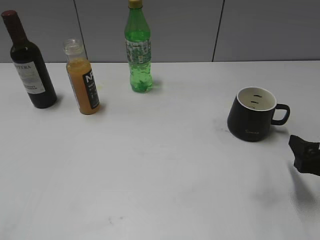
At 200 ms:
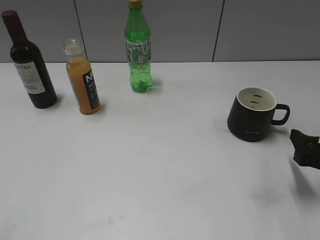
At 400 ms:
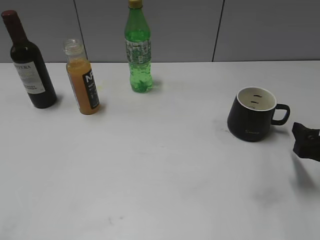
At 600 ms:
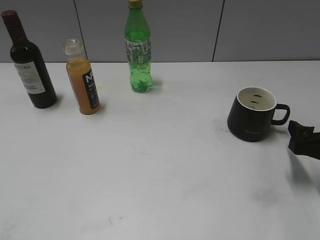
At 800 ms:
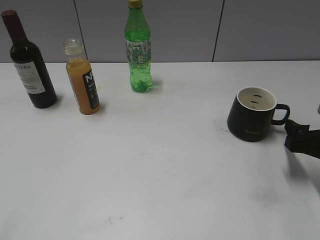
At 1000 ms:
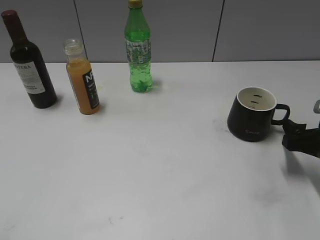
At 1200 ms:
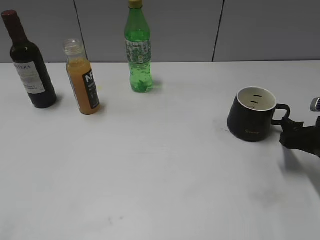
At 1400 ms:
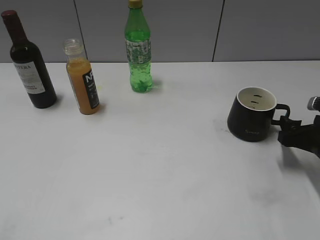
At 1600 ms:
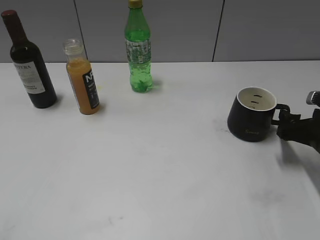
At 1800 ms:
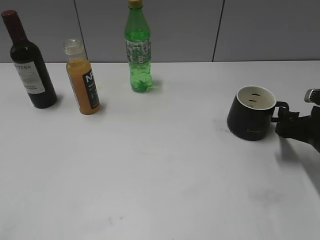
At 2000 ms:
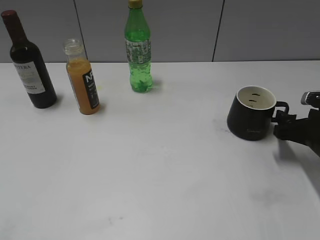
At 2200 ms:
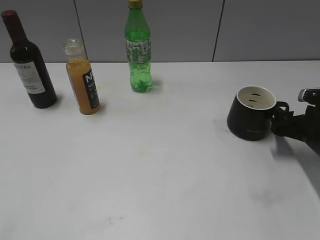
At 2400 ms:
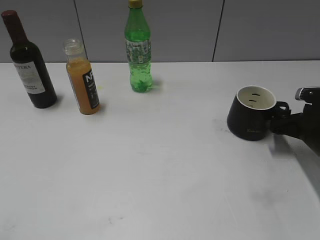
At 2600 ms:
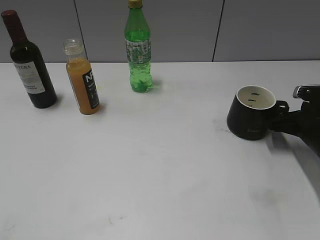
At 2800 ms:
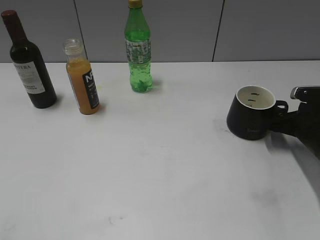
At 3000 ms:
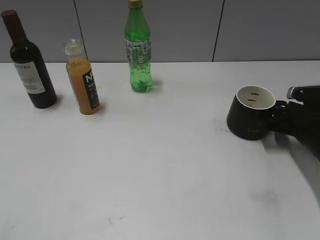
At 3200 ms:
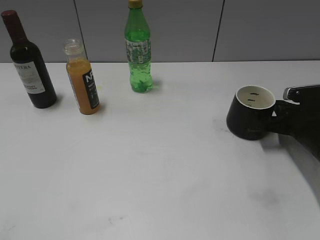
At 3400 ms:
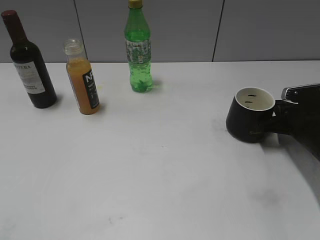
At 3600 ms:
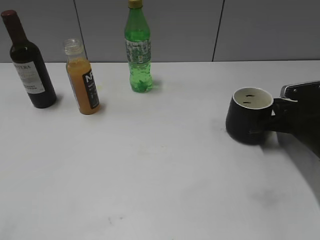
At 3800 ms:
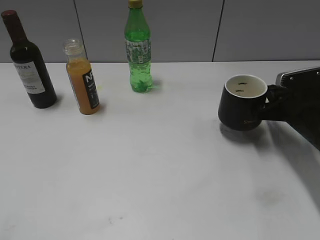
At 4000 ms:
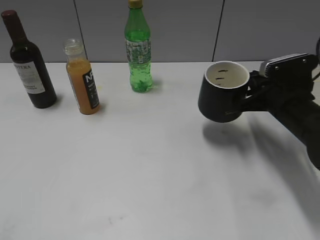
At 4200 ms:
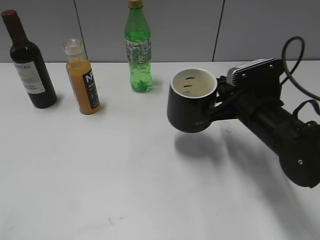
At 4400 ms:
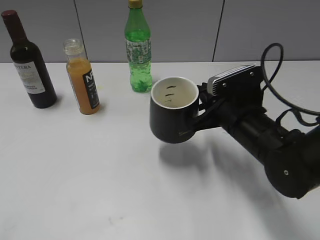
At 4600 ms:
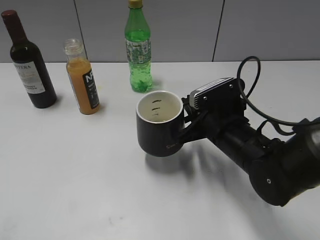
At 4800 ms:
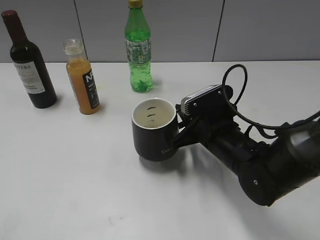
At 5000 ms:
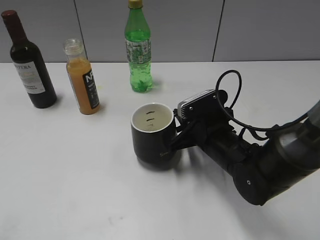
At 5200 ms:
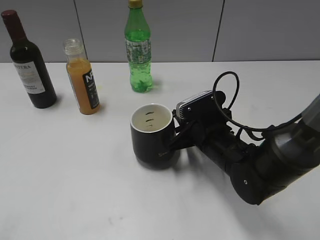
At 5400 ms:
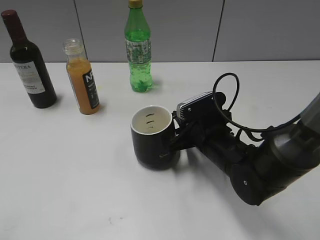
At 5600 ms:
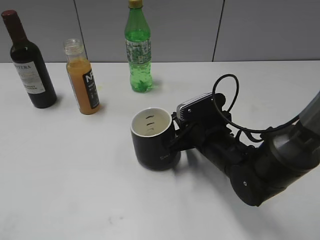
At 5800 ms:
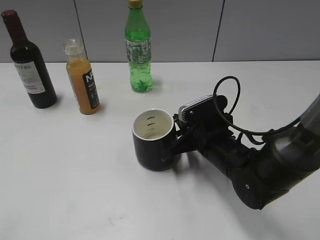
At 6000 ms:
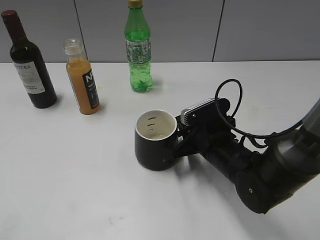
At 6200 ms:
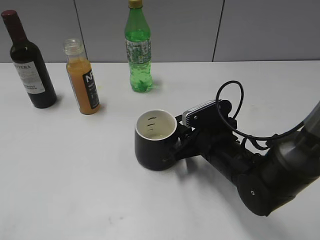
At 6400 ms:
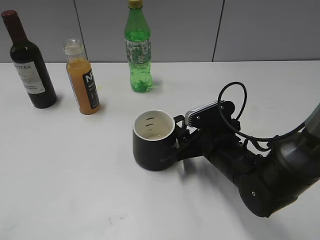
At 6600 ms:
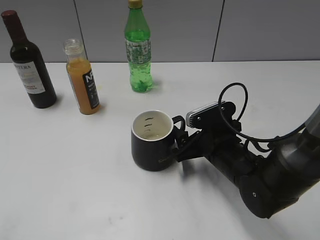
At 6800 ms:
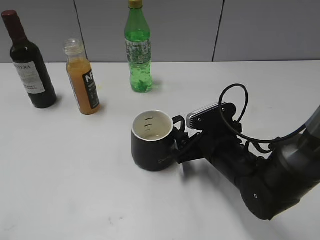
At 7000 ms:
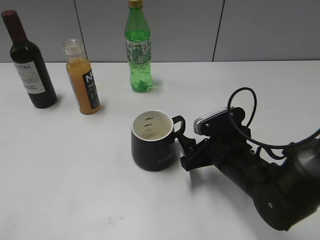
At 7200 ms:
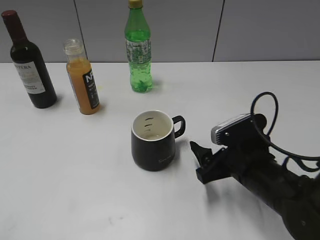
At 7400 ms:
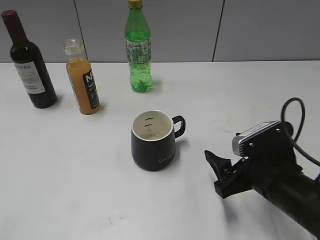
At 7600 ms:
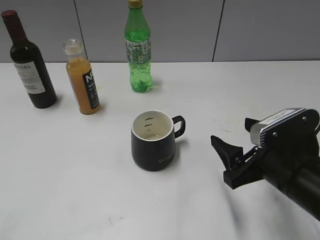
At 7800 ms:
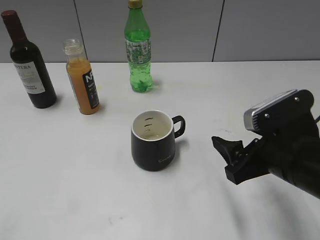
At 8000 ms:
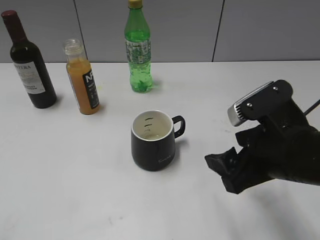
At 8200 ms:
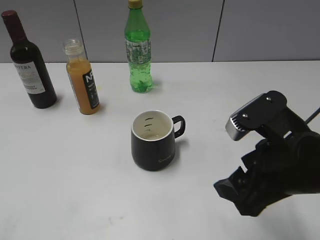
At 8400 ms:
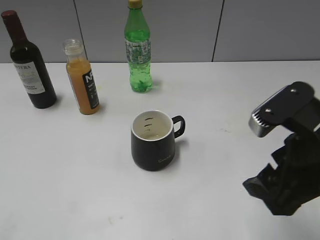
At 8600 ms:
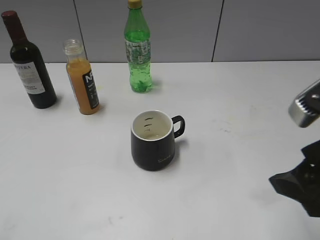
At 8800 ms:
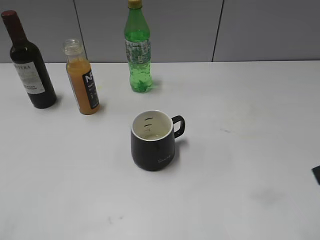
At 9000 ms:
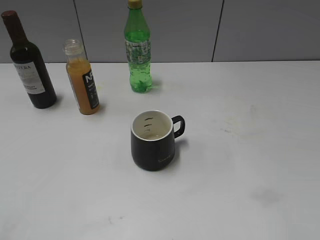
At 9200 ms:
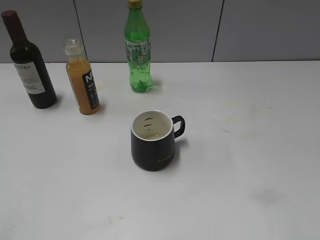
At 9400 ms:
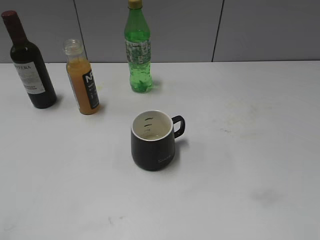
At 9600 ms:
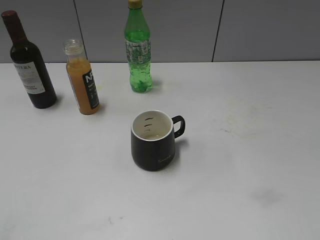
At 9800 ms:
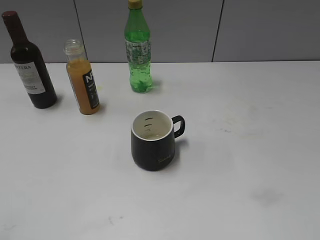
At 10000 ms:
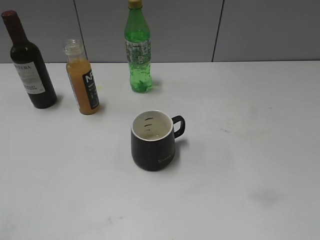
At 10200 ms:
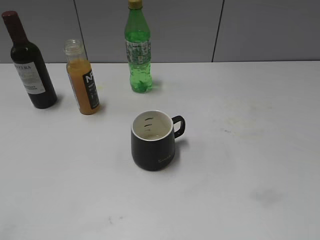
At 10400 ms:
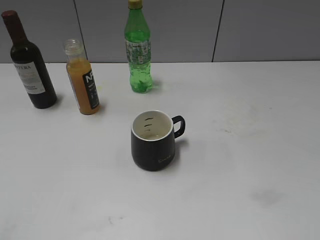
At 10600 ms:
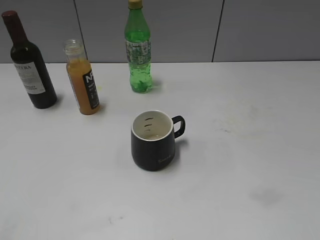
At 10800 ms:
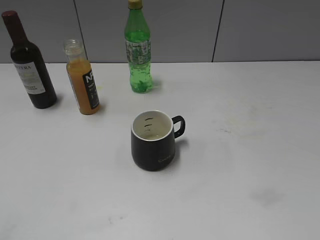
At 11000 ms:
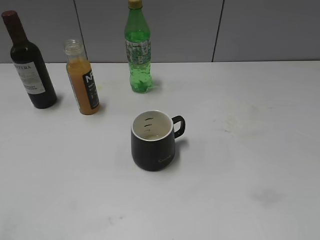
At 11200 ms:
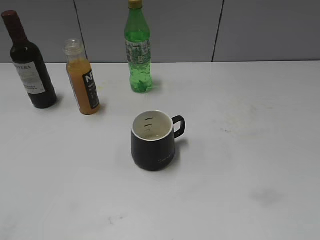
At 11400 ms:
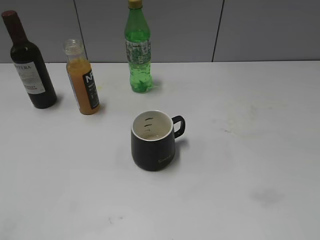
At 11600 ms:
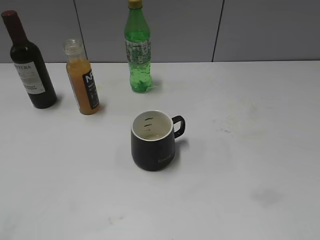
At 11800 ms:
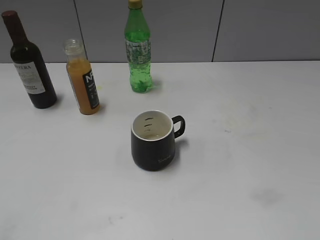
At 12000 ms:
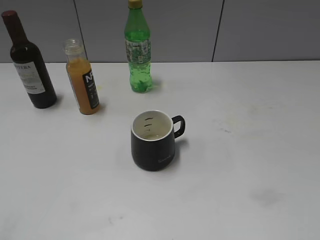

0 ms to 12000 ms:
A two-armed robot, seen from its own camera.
Step, 0 ms to 3400 ms: Grasp the black cup with right gripper.
Step, 3600 ms to 6400 ms: Place the black cup in the center of view with right gripper.
0 ms to 1600 ms: The right gripper travels forward by some 10 cm.
1600 ms to 3000 ms: The grippers stay close to where they were, moving slightly.
3000 ms to 4400 ms: The right gripper is displaced to the left and upward by approximately 15 cm, and closes its fingers.
4400 ms to 6000 ms: The right gripper goes some 5 cm downward.
6000 ms to 7600 ms: The right gripper moves backward, to the right and upward, some 15 cm, and opens up.
7600 ms to 9000 ms: The right gripper heads upward, to the right and backward, covering some 20 cm.
10400 ms to 12000 ms: Both grippers stay about where they are.

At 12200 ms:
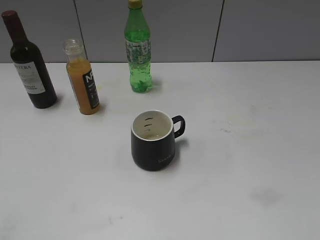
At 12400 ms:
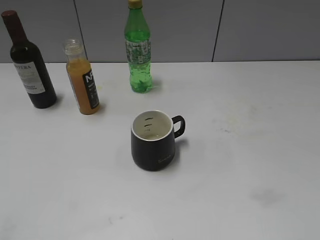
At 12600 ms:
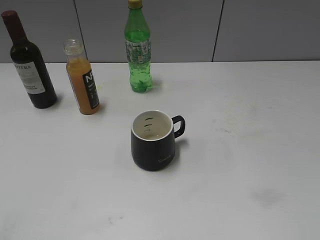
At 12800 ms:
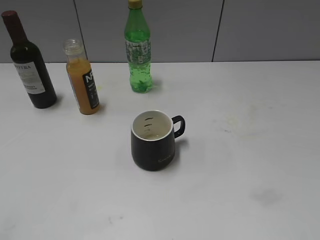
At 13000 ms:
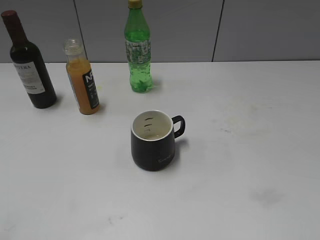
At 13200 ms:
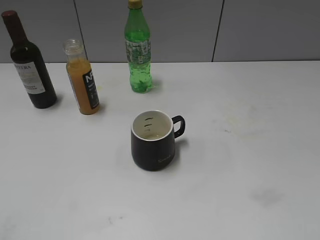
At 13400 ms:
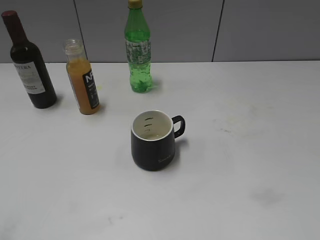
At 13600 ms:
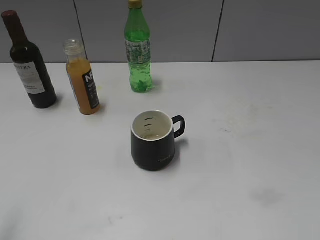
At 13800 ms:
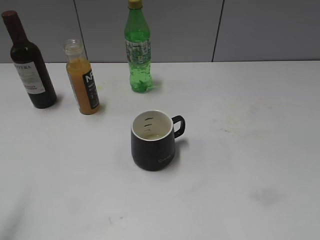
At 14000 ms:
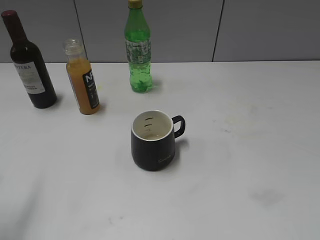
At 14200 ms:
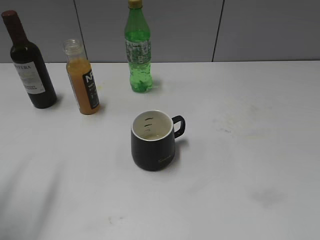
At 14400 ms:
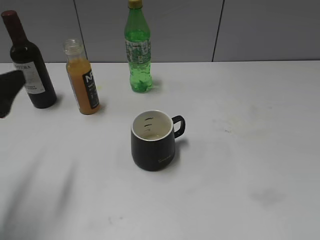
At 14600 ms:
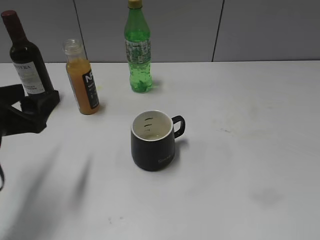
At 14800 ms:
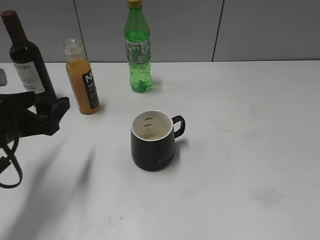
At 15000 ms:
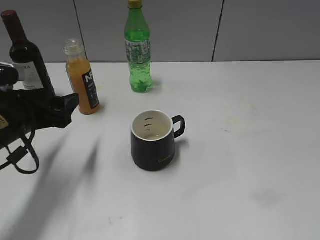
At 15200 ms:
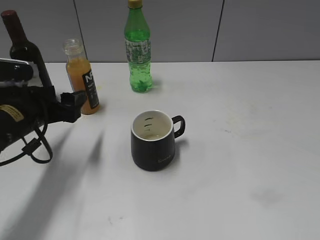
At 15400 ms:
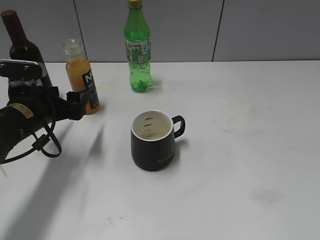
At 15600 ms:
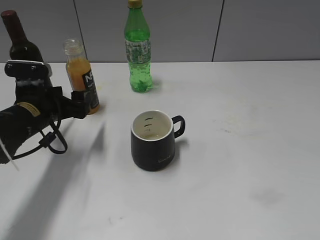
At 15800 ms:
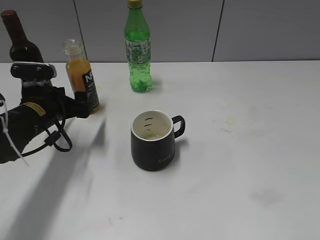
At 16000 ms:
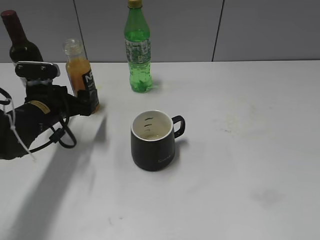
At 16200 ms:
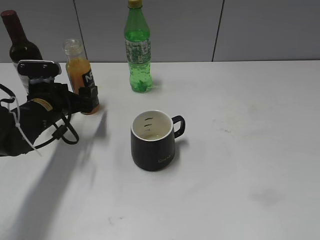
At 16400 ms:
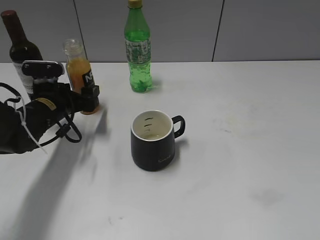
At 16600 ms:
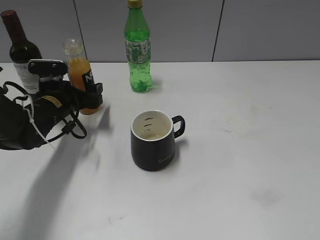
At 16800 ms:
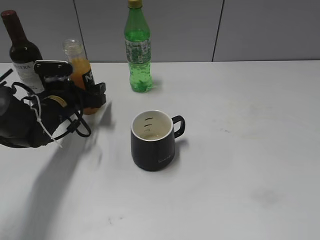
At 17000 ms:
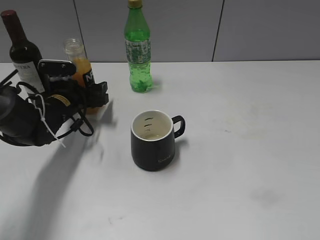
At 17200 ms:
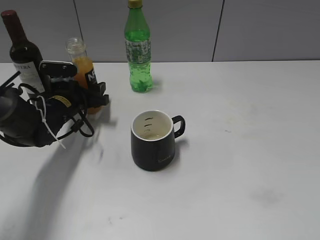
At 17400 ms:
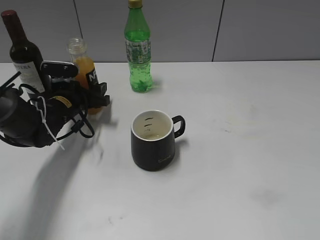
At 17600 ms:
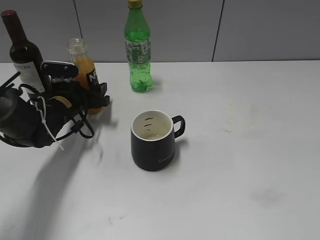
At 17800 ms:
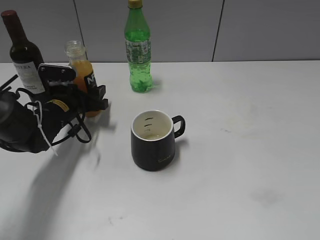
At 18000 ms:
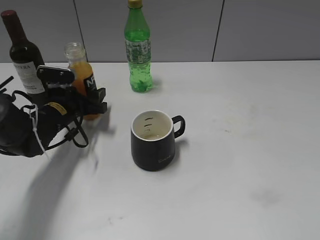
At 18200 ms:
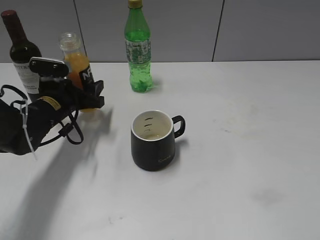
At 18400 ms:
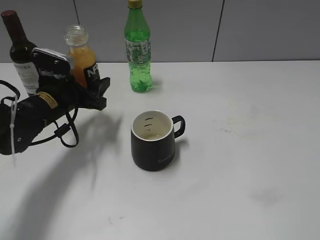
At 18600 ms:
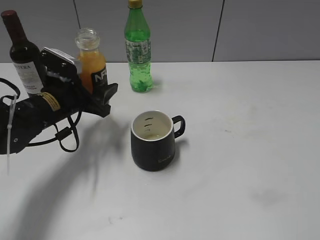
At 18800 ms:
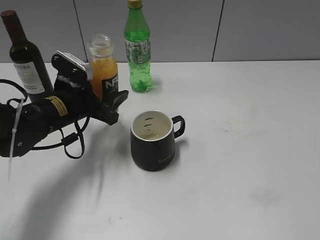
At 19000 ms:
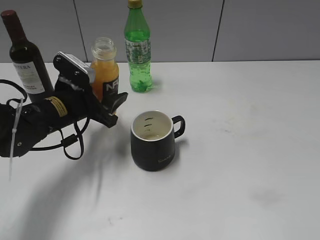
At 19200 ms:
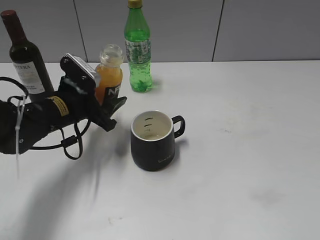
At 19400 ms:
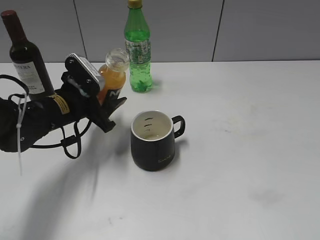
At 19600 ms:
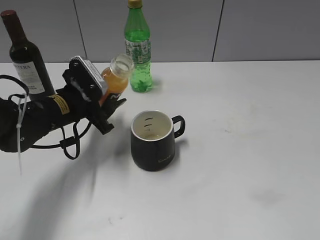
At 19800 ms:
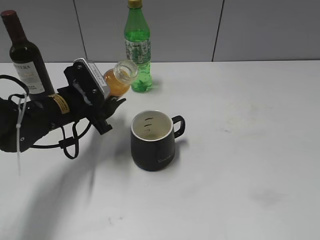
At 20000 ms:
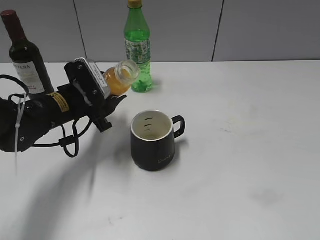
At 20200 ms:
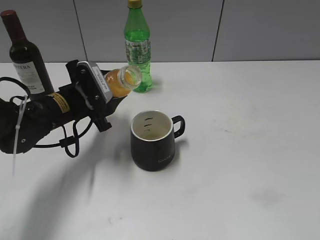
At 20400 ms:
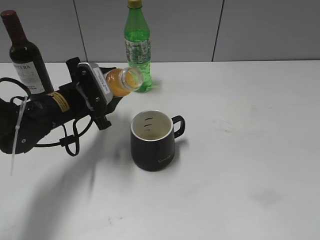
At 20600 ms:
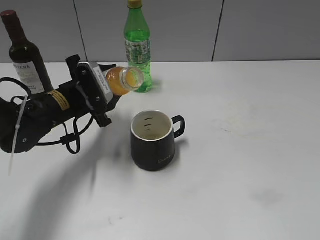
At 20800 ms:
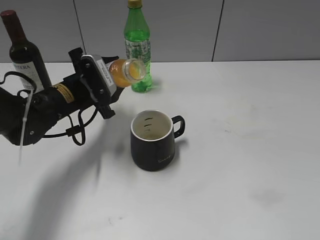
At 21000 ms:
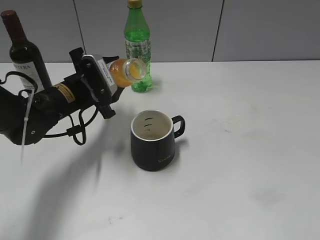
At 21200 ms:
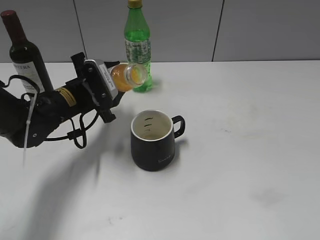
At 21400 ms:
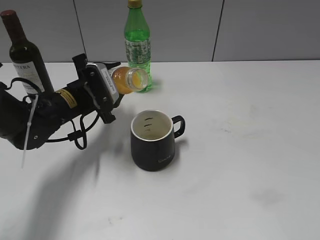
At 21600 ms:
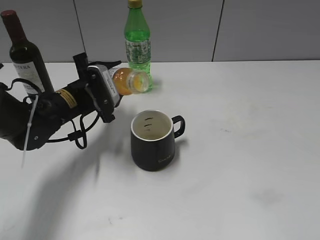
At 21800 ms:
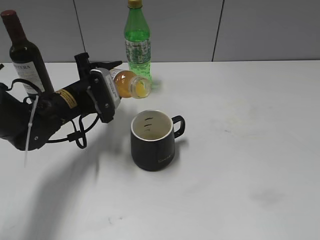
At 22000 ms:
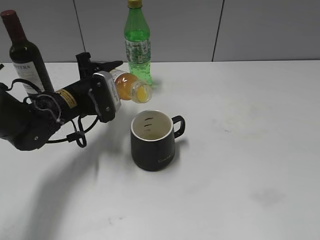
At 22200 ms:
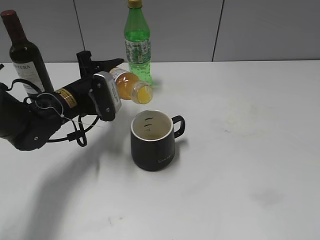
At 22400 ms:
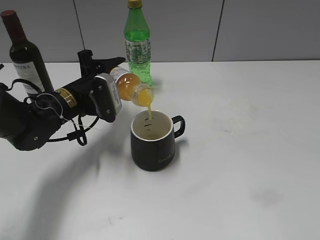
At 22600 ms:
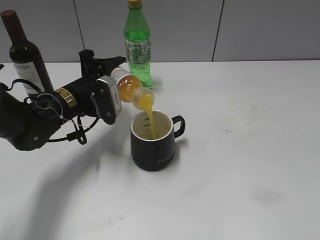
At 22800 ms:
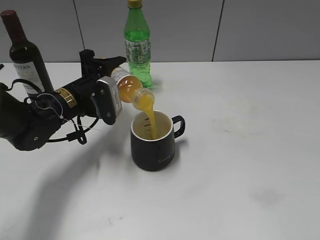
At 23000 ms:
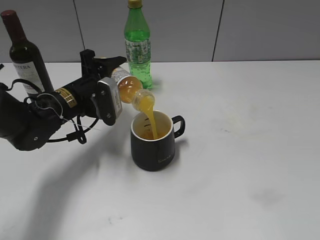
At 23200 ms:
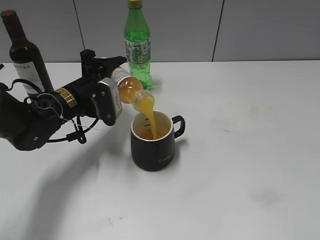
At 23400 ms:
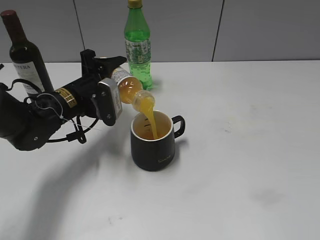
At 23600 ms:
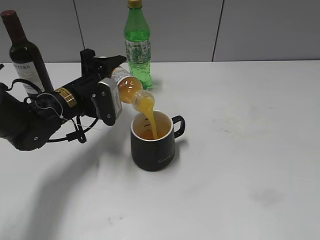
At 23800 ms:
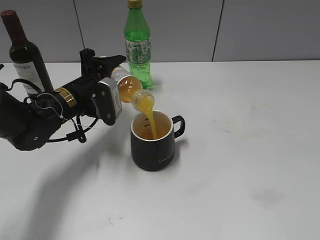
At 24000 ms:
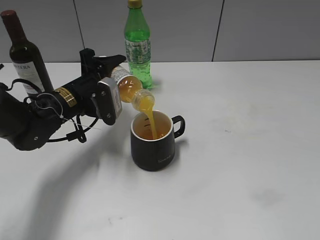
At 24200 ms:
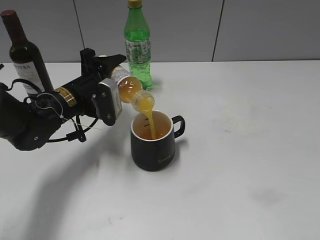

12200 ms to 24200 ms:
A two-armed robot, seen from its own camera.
Step, 12200 ms to 17800 ms: Grasp the bottle with orange juice with left gripper.
13800 ms to 15200 ms: The left gripper is displaced forward, downward and to the right by about 25 cm.
15200 ms to 16600 ms: The left gripper goes approximately 10 cm forward and downward.
16600 ms to 18200 ms: The left gripper closes.
19800 ms to 21200 ms: The grippers move only a little.
22600 ms to 24200 ms: The grippers make only small movements.
